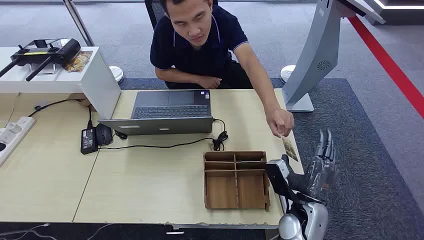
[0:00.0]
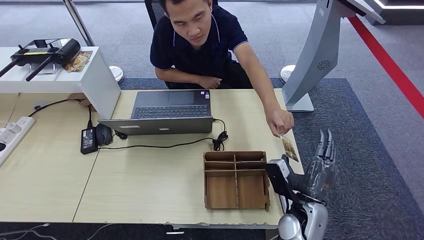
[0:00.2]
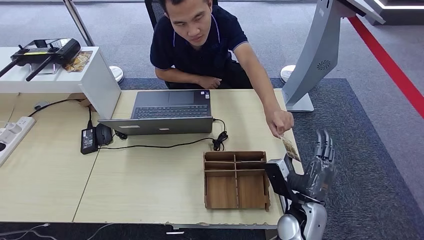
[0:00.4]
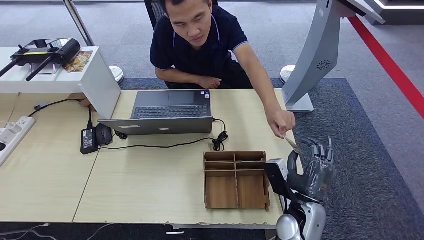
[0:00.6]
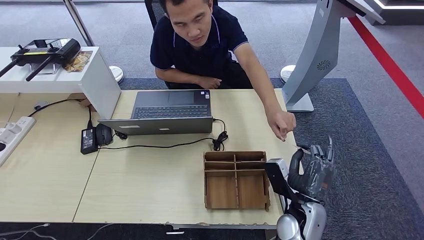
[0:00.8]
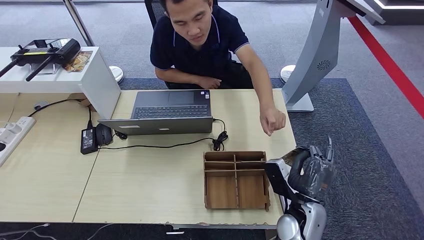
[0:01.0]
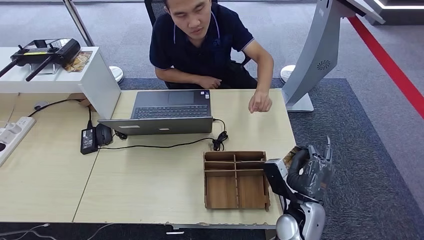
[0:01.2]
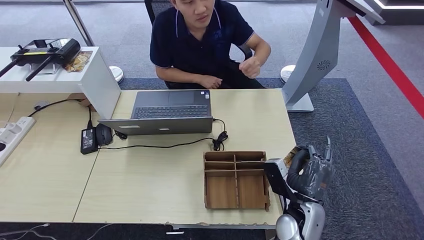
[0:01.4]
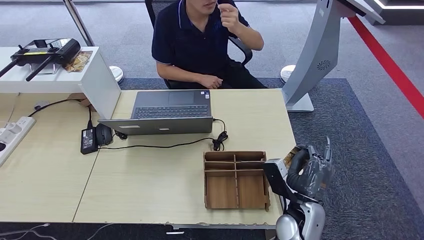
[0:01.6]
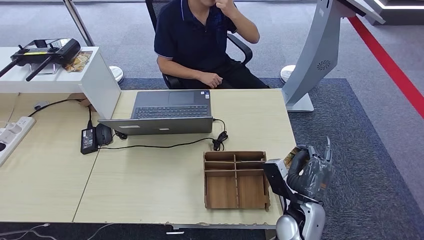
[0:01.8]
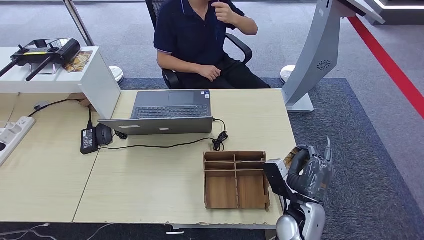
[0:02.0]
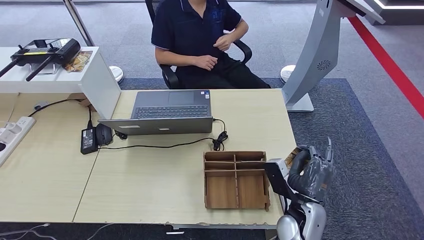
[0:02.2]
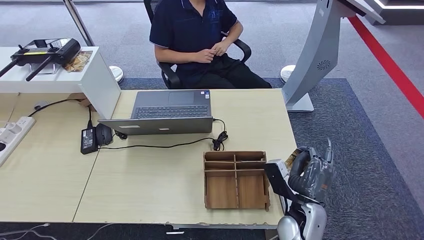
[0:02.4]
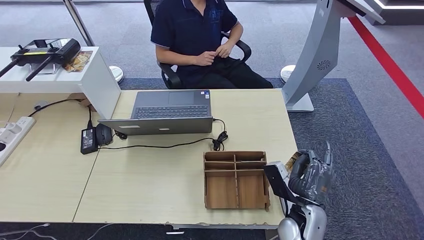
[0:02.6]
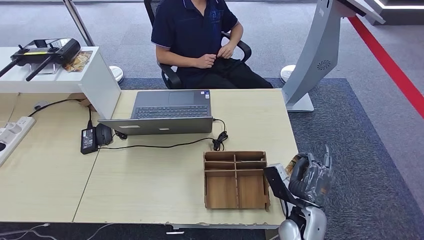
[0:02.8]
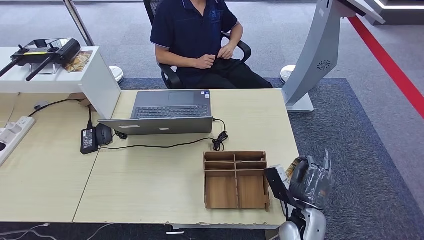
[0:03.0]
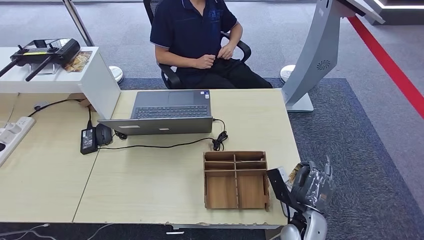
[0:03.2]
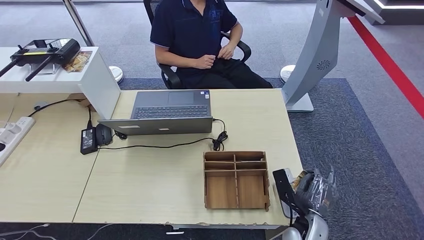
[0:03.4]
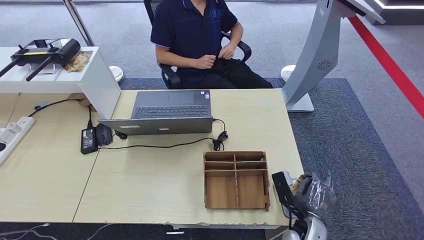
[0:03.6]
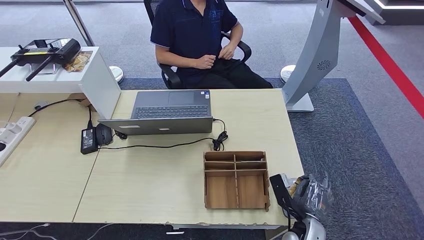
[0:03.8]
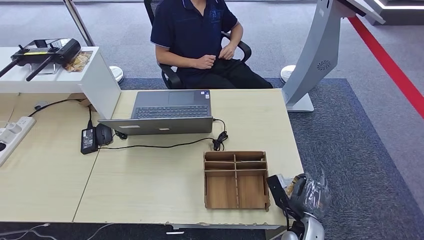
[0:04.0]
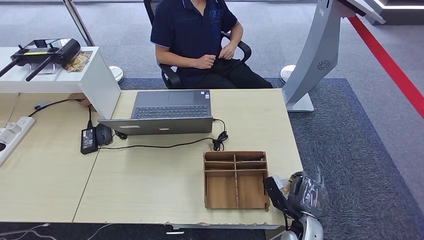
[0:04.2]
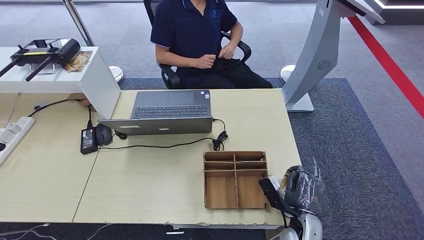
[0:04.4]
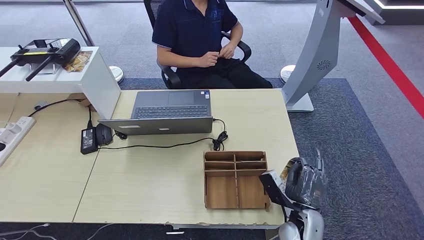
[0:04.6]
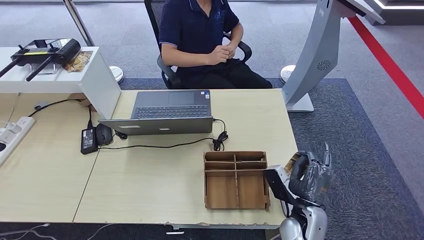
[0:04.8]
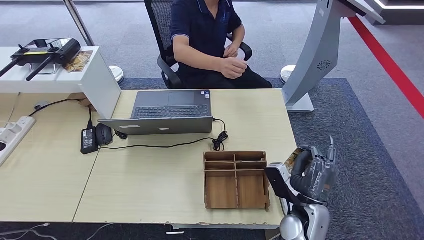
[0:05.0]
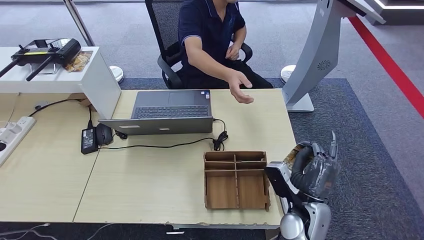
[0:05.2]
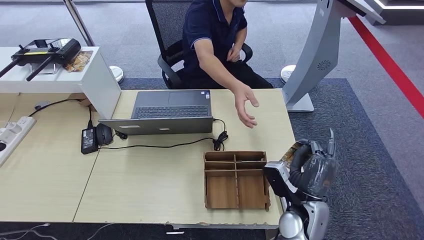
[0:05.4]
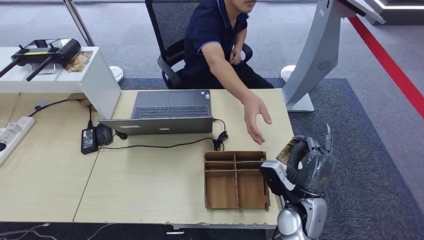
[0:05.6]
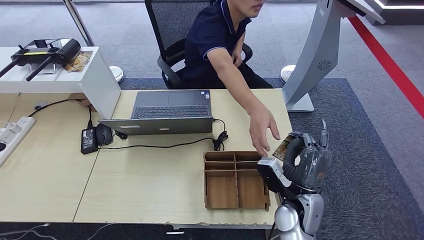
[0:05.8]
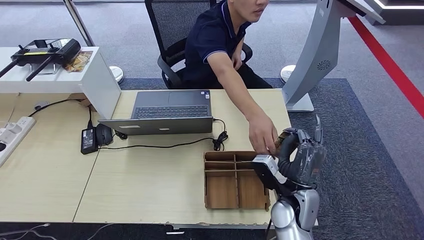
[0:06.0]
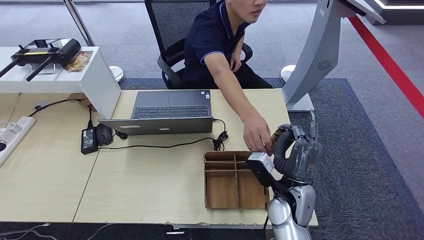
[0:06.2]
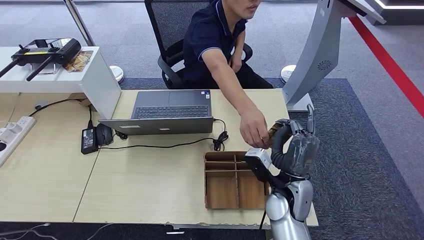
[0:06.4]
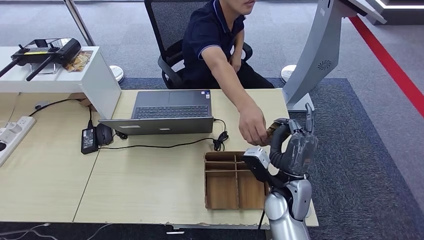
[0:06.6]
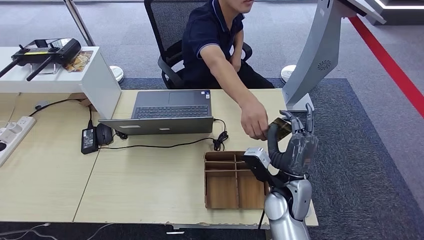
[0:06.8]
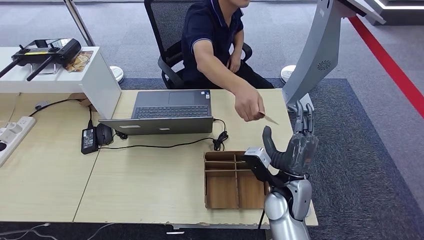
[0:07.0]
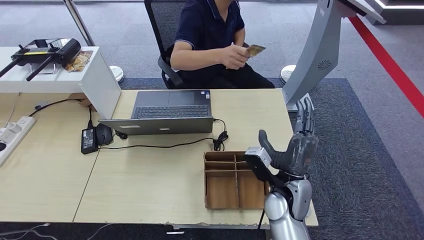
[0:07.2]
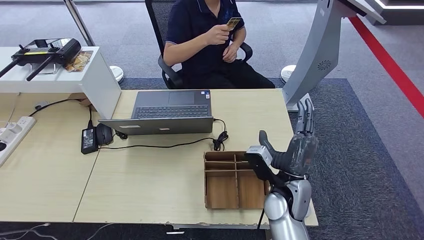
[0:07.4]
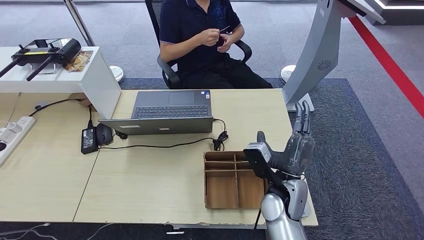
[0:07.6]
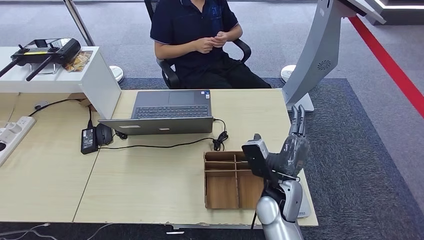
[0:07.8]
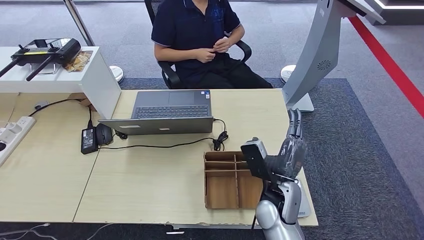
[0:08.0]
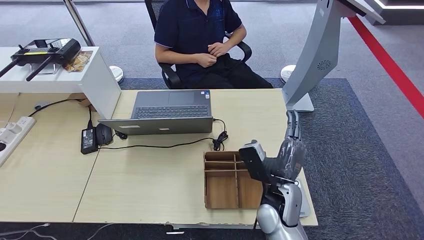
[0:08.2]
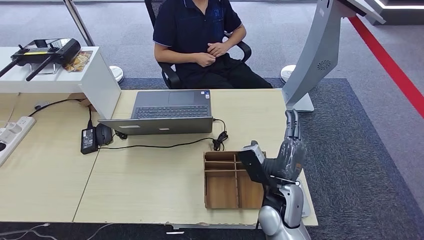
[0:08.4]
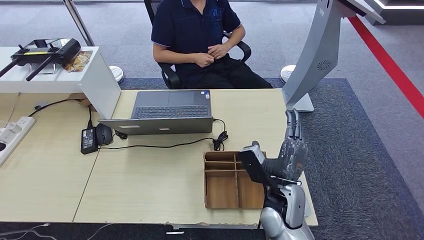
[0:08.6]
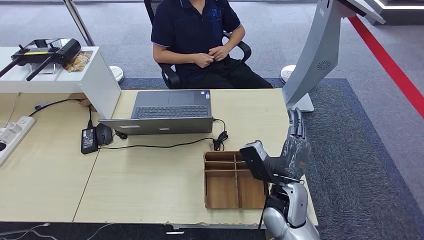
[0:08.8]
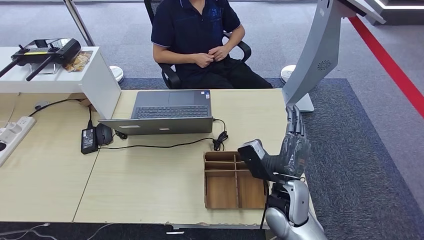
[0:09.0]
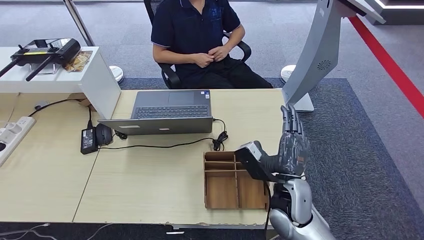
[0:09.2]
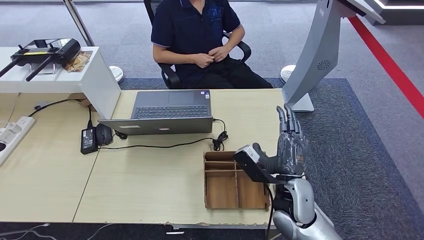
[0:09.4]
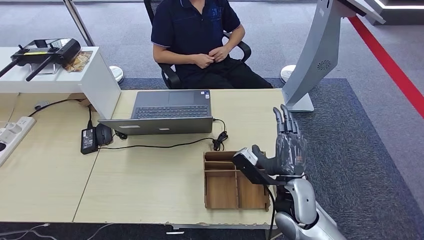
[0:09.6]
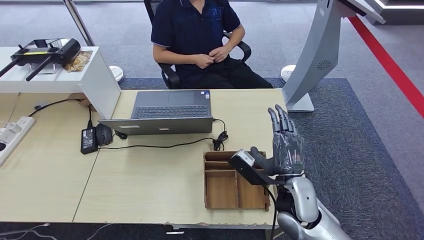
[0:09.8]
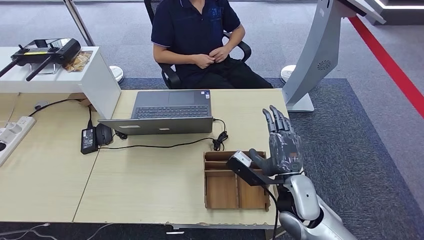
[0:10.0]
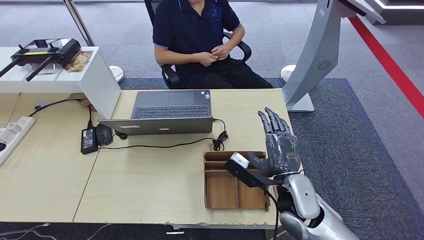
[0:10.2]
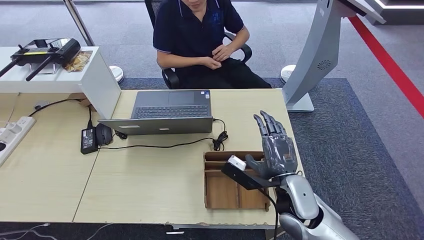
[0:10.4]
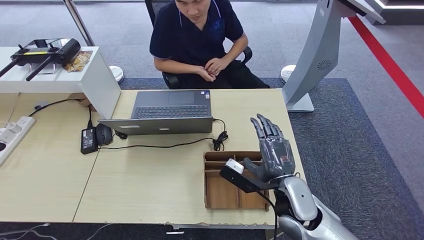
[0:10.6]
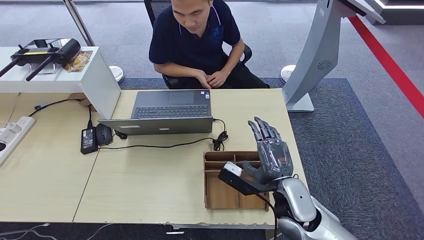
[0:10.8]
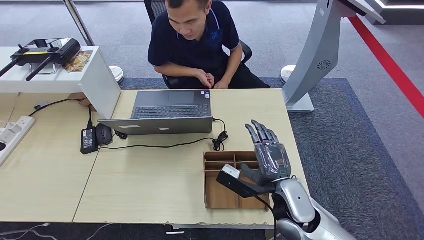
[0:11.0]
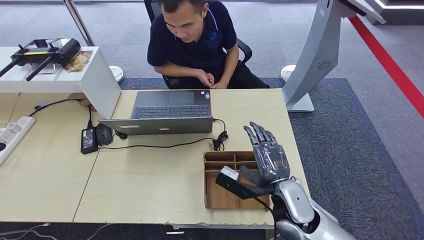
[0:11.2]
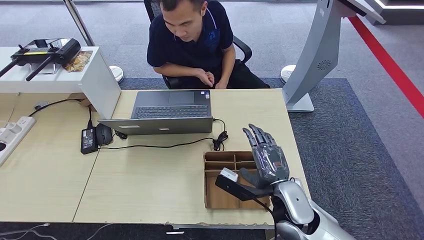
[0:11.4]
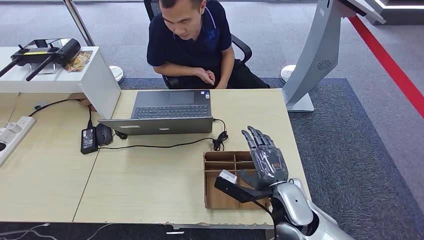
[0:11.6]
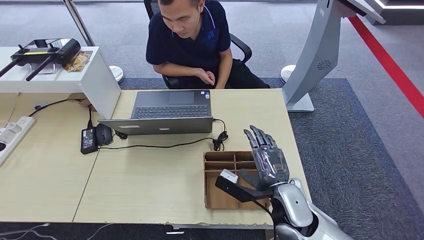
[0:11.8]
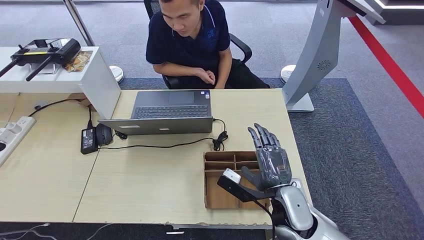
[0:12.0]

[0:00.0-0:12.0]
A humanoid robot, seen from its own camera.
Step, 0:00.0 to 0:01.0: Take the ID card from the person's hand.
Step, 0:01.2 to 0:04.4: Place the ID card on the card reader.
Step, 0:04.6 to 0:08.4: Hand the ID card to the person.
0:01.6 to 0:03.0: The hands make only small movements.
0:03.0 to 0:04.4: The hands move only a little.
0:04.4 to 0:06.0: The right hand travels upward by roughly 10 cm.
0:06.0 to 0:09.0: The hands stay close to where they were, moving slightly.
0:10.4 to 0:12.0: The hands make only small movements.

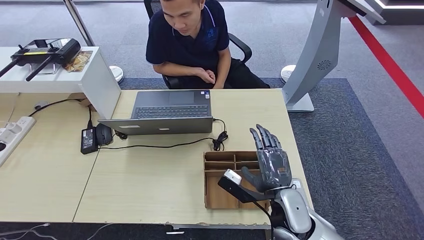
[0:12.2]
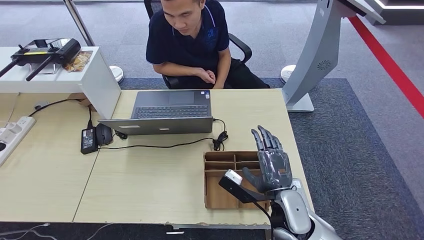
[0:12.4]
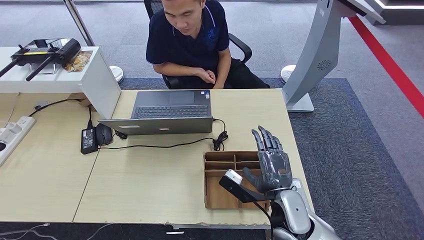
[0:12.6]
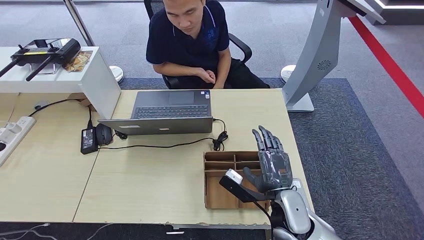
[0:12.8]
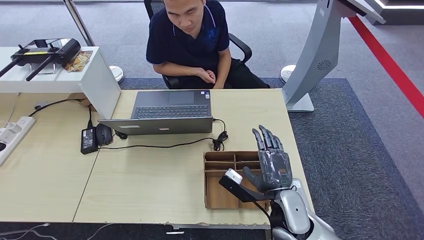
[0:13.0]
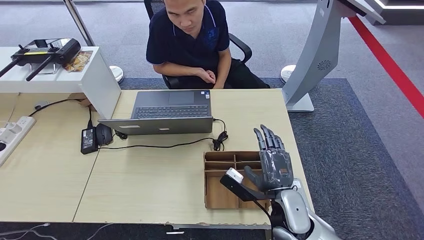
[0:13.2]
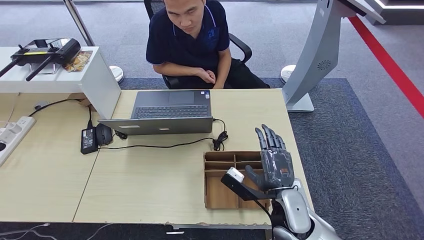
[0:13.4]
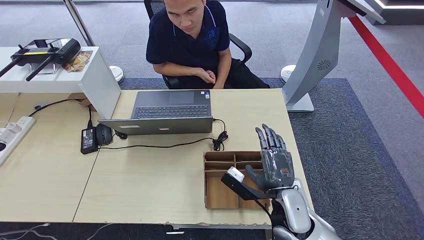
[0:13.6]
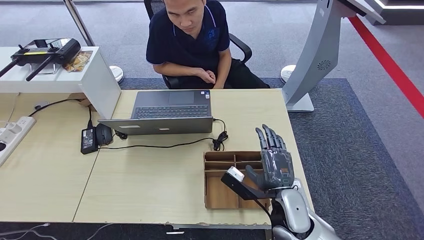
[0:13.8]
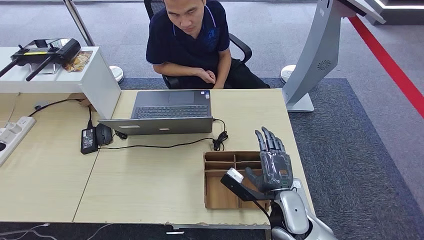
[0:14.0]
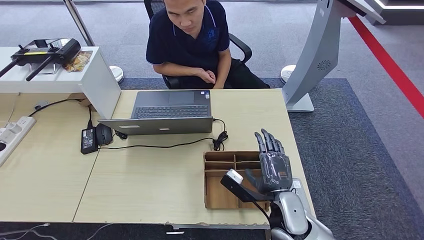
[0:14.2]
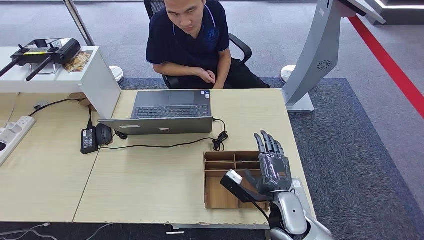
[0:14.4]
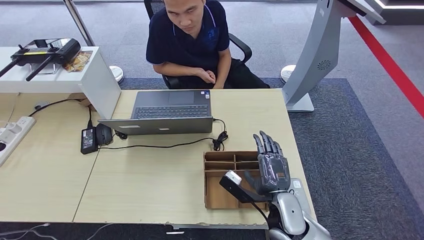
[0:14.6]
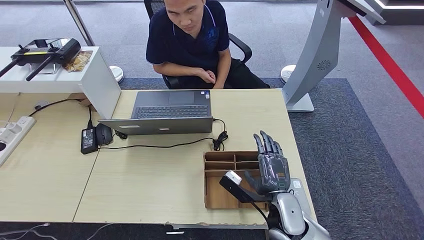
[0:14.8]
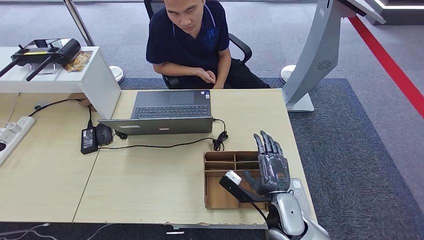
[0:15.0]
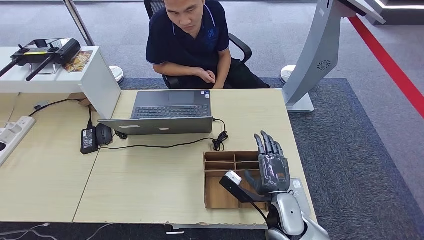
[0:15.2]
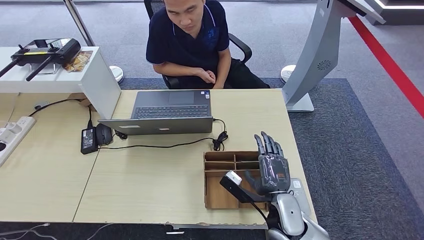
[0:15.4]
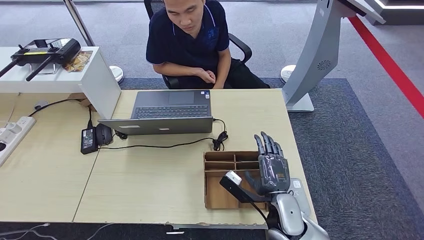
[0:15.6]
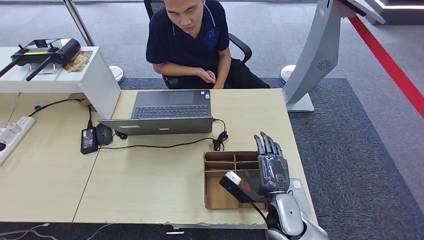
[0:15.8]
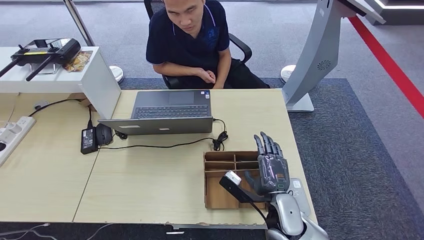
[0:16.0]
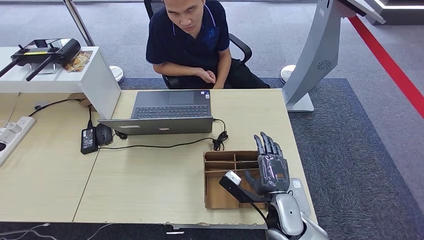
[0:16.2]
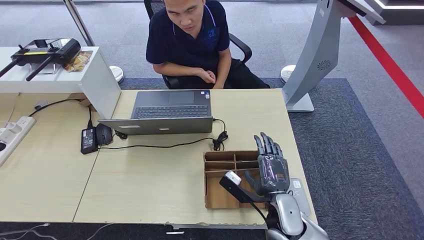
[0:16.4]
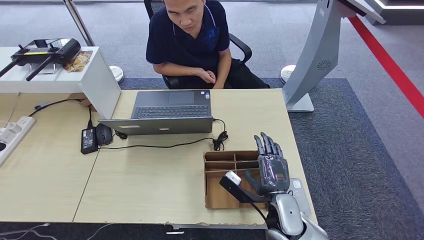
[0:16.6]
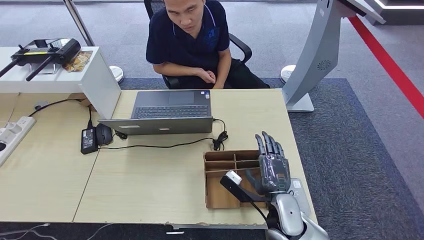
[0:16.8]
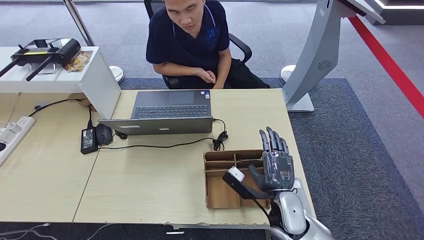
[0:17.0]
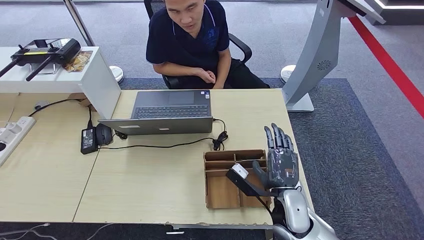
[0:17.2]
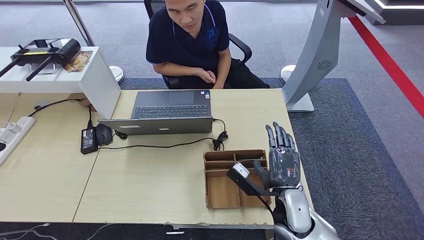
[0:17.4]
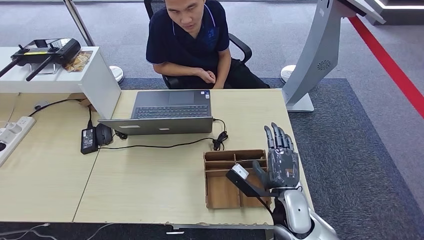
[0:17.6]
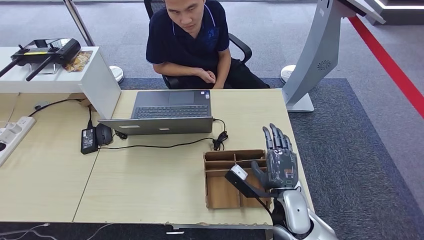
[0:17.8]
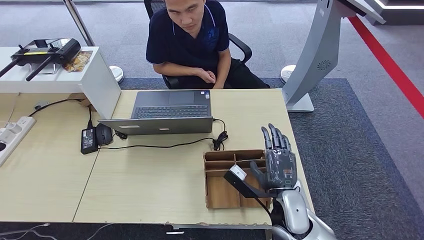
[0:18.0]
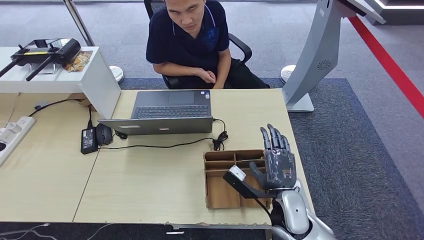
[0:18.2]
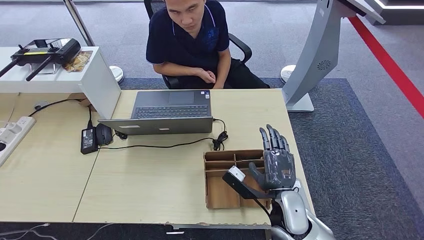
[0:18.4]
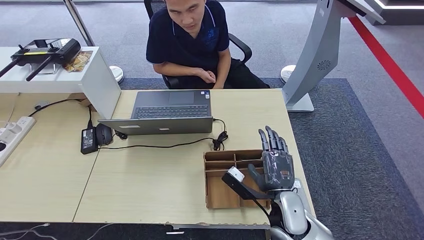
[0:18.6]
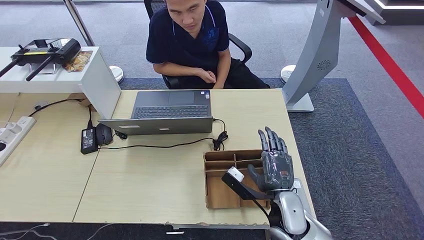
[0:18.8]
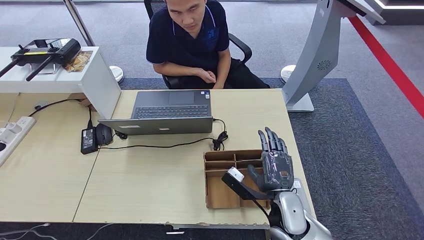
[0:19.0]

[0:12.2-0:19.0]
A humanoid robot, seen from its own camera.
0:12.2 to 0:13.6: Both hands stay about where they are.
0:13.6 to 0:15.0: The hands stay close to where they were, moving slightly.
0:15.0 to 0:16.2: Both hands stay put.
0:16.2 to 0:17.6: The hands move only a little.
0:17.6 to 0:19.0: The two hands keep their place.
